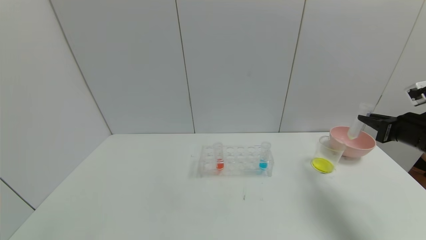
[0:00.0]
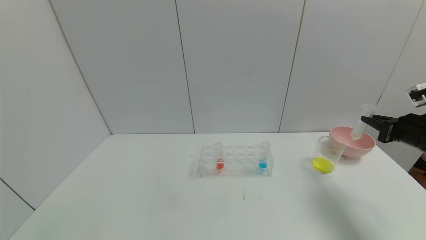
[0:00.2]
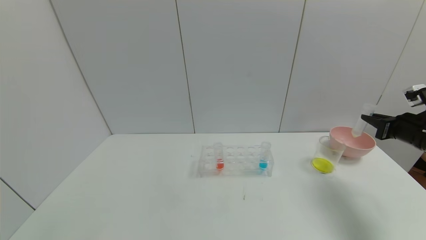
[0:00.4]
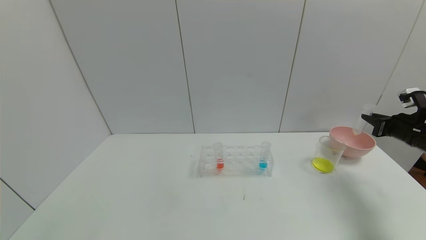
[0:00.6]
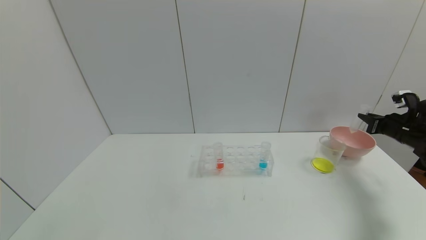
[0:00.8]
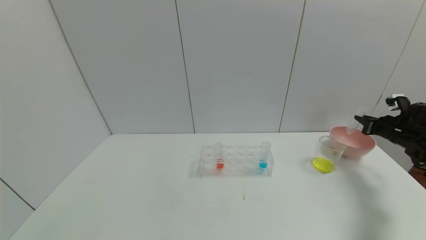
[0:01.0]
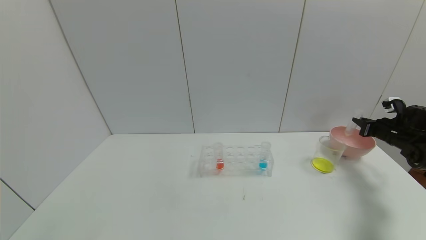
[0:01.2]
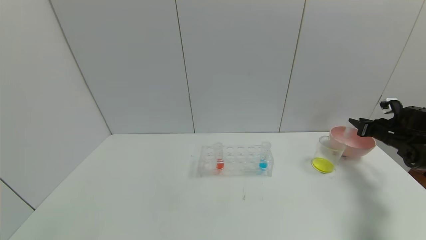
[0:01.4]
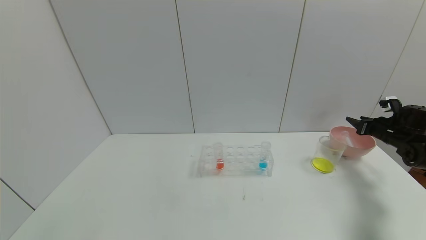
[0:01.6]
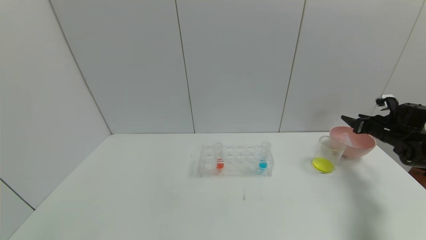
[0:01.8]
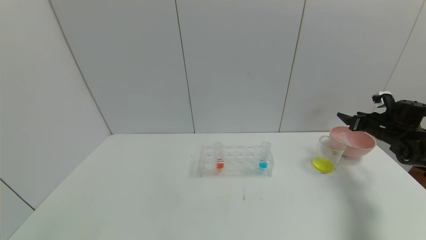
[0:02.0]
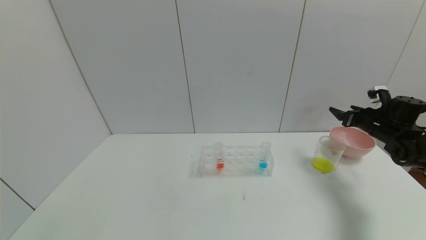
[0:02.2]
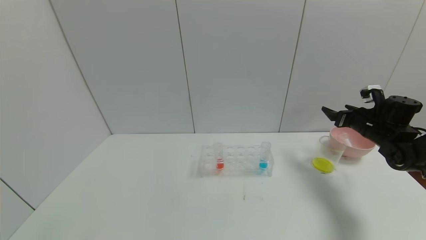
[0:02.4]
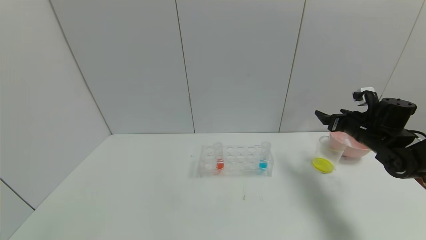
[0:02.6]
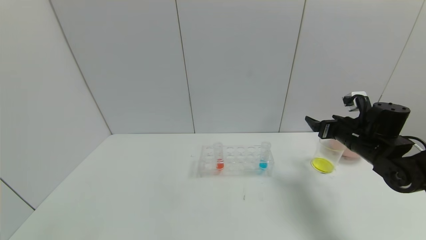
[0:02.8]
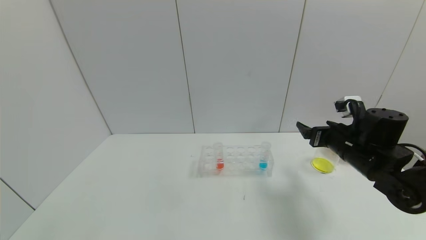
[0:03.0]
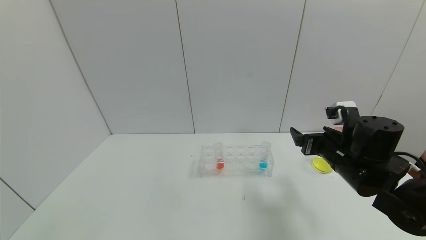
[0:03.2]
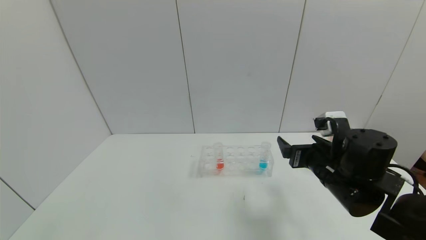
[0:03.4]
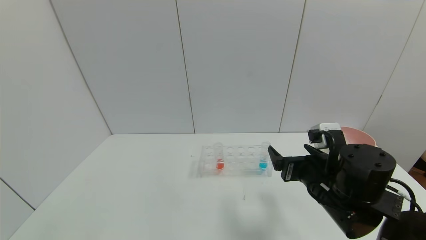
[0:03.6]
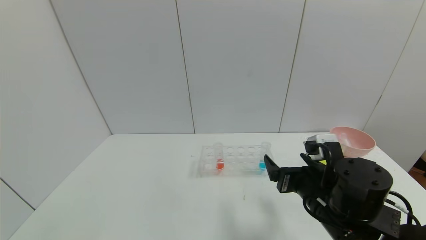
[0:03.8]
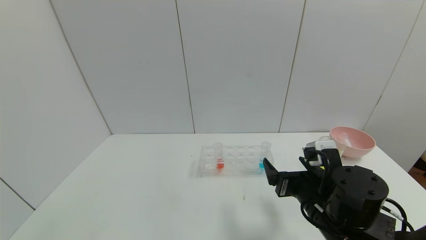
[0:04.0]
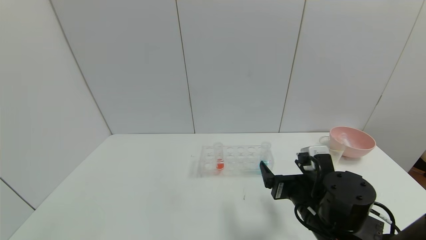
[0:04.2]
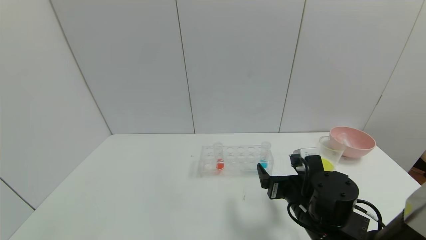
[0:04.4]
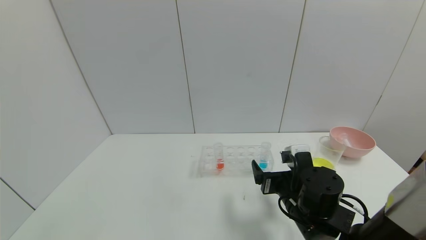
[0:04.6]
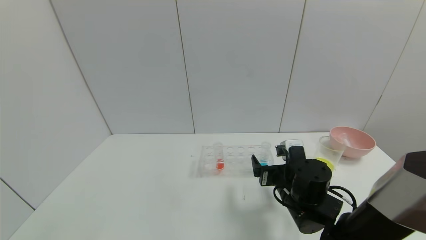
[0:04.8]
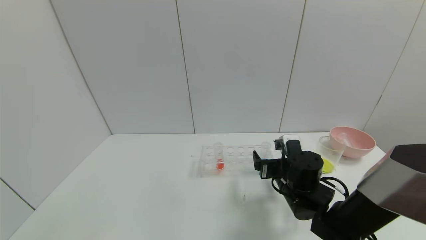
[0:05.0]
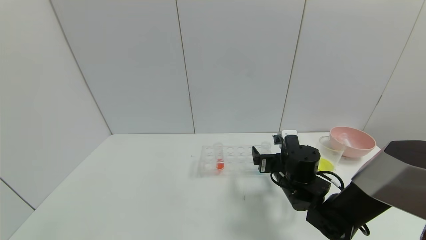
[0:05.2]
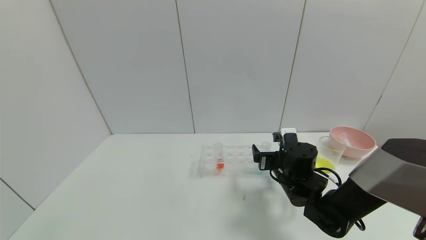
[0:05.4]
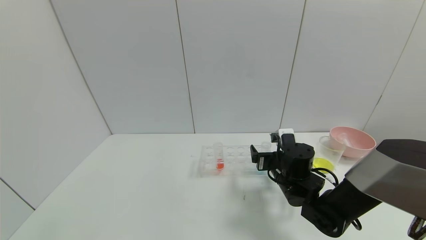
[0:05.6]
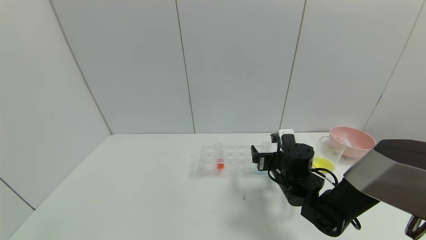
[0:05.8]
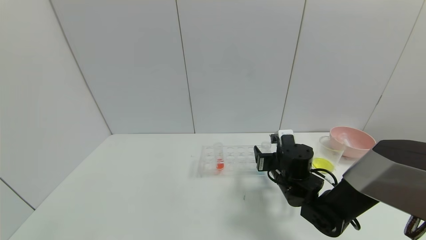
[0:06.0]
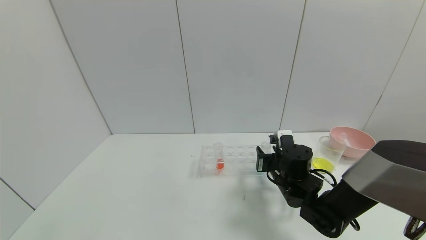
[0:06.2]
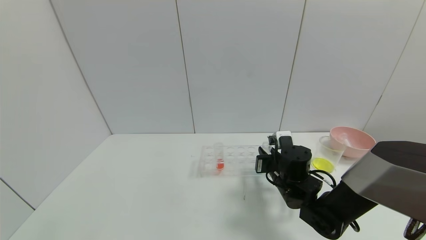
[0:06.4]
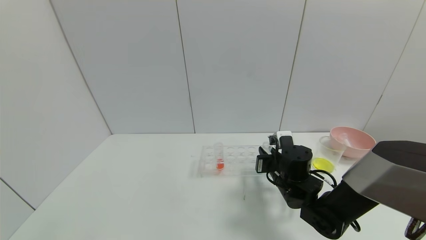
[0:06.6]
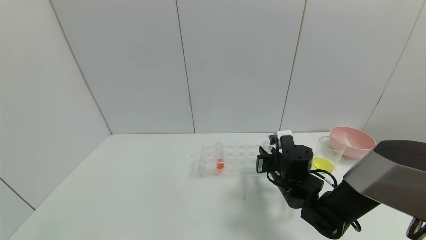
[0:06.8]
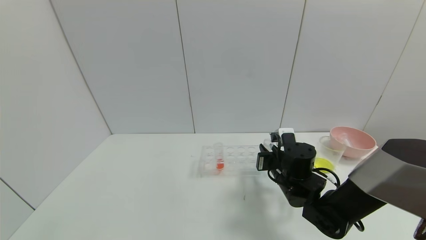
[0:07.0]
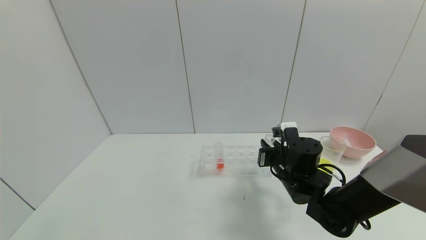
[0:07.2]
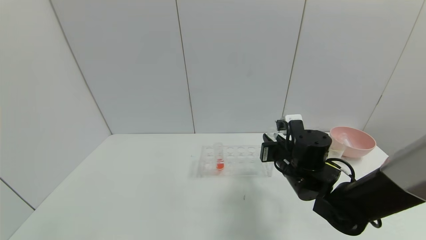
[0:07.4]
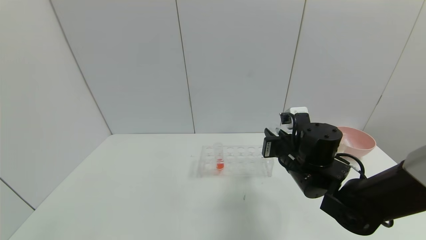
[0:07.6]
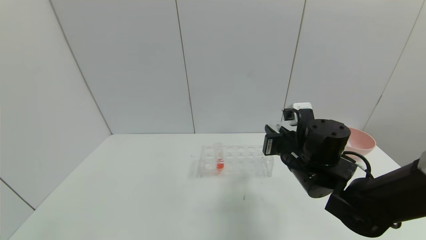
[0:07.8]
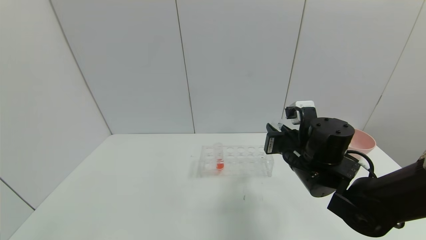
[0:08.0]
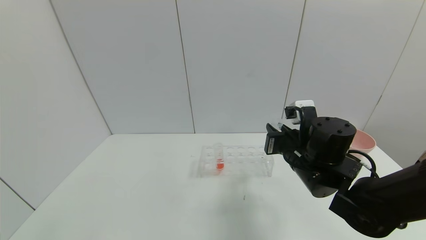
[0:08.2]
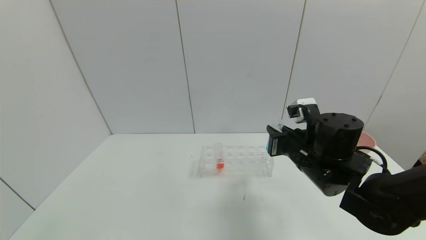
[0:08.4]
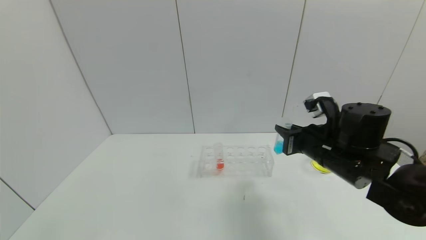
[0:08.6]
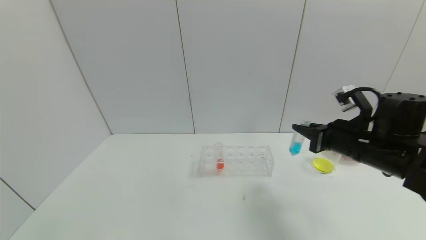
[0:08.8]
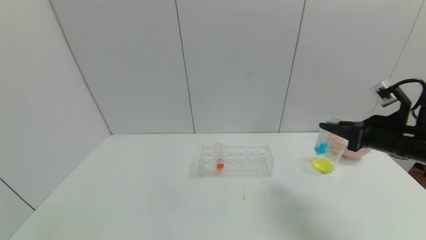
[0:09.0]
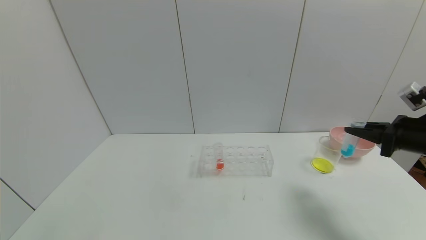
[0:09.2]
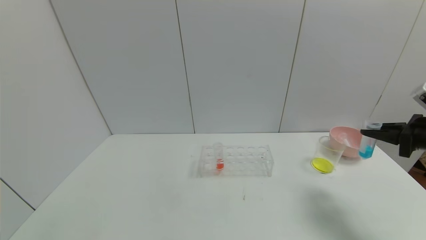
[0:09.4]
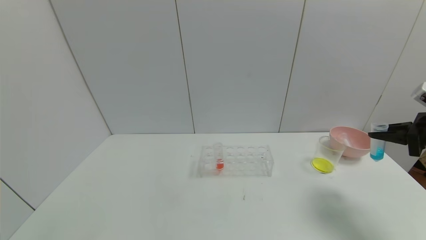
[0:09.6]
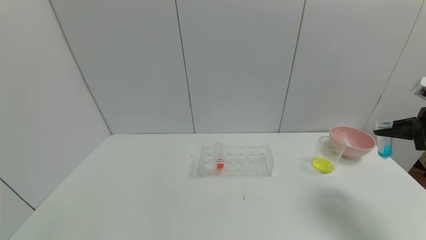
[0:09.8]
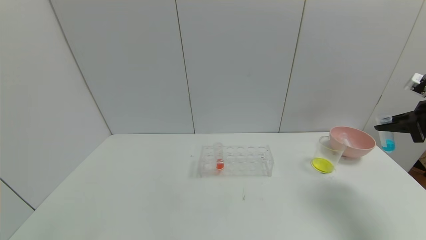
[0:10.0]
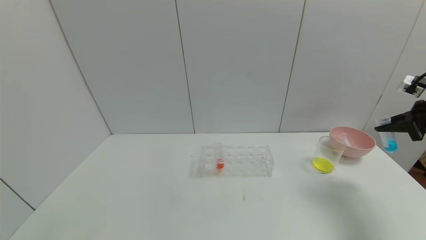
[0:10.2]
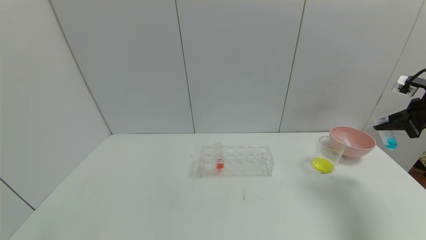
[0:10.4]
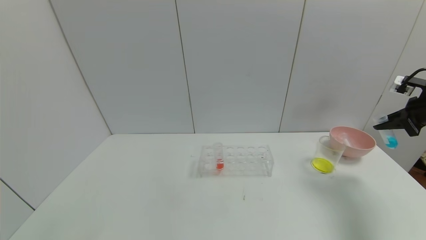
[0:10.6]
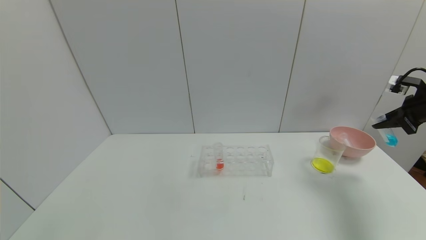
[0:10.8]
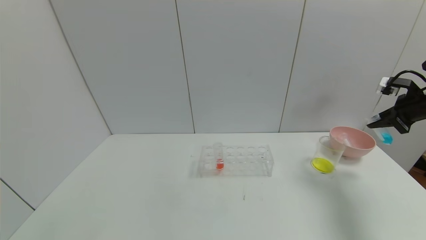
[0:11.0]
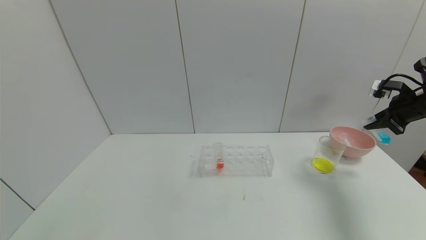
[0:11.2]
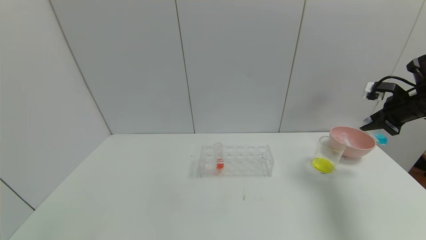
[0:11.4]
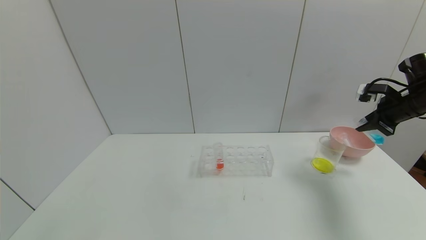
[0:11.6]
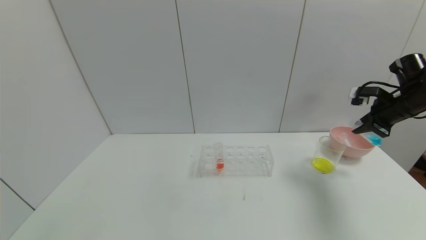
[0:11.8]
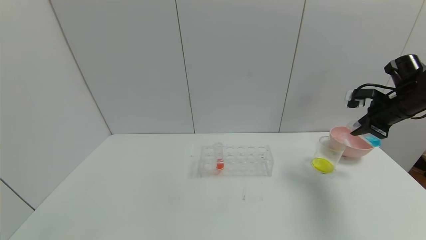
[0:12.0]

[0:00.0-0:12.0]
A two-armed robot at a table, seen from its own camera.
Task of the whole recording: pick up the test tube with yellow pigment and the test tube with blue pigment by grippers and pour them into the beaker.
Step, 0:00.0 to 0:03.2: Place the test tube into the bowl with right gripper.
Step, 0:03.4 to 0:09.0: Pick up the test tube containing the blue reagent with right gripper.
0:00.0 to 0:01.6: The right gripper heads forward, to the right and downward, covering about 20 cm, and opens its fingers.
0:01.6 to 0:03.0: The right gripper shifts some 25 cm to the left and backward, and opens its fingers.
0:03.0 to 0:04.4: The right gripper goes roughly 15 cm to the left, backward and downward.
0:04.4 to 0:06.0: The right gripper is displaced forward by roughly 10 cm.
0:06.0 to 0:07.6: The right gripper is displaced upward by some 5 cm, and closes up.
0:07.6 to 0:09.0: The right gripper is displaced to the right by approximately 20 cm.
0:09.0 to 0:10.4: The right gripper travels to the right by about 15 cm.
0:10.4 to 0:12.0: The right gripper moves to the left, approximately 5 cm.

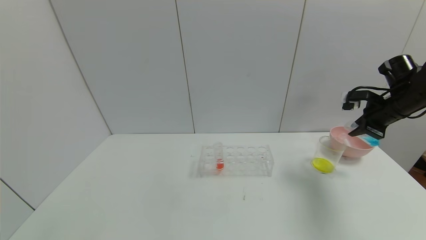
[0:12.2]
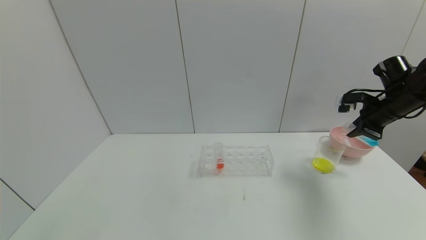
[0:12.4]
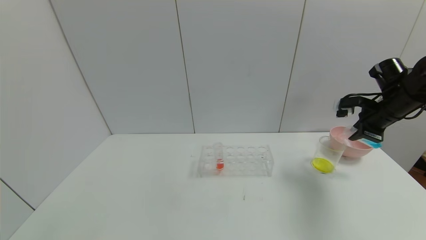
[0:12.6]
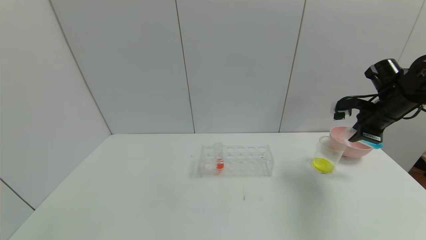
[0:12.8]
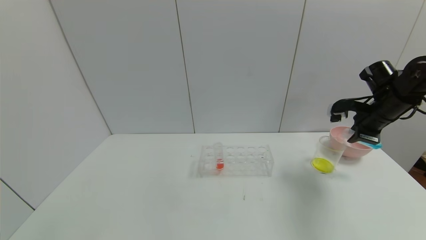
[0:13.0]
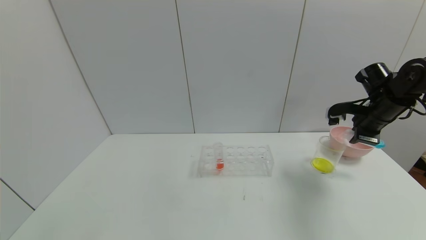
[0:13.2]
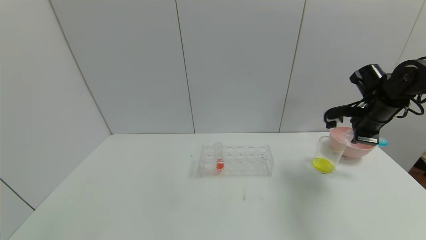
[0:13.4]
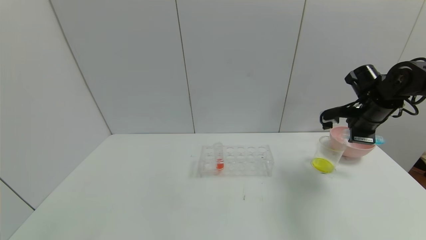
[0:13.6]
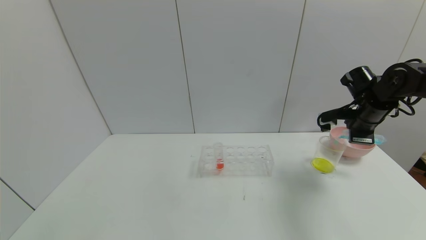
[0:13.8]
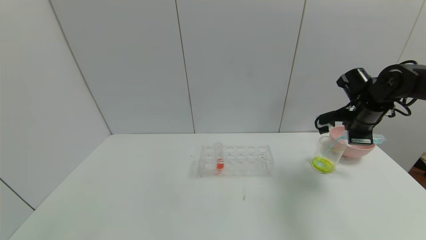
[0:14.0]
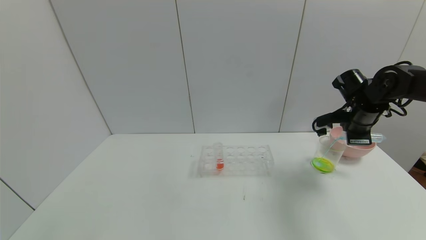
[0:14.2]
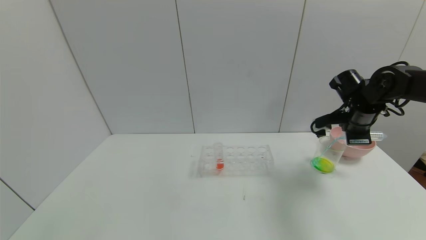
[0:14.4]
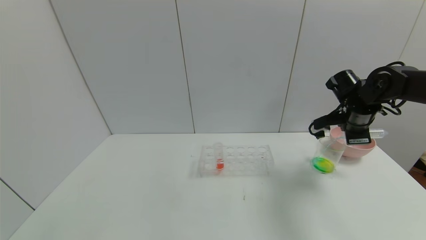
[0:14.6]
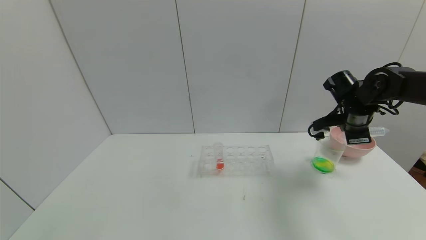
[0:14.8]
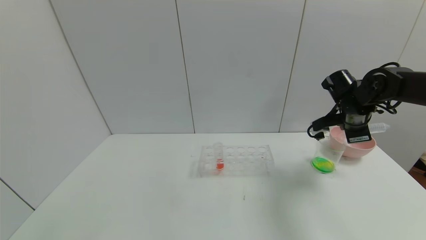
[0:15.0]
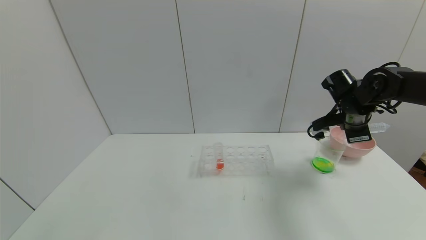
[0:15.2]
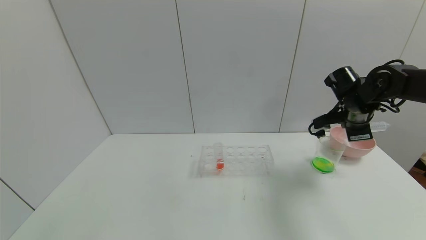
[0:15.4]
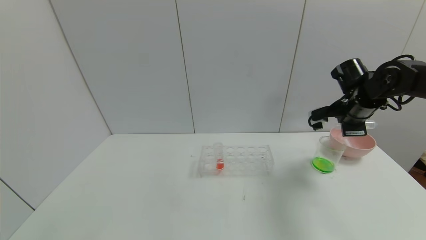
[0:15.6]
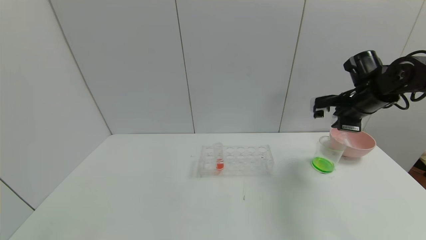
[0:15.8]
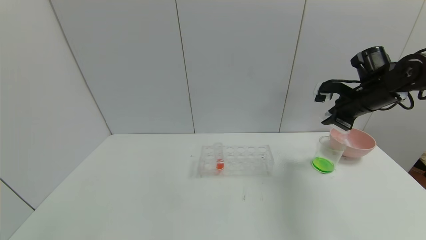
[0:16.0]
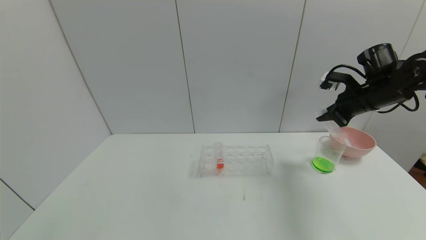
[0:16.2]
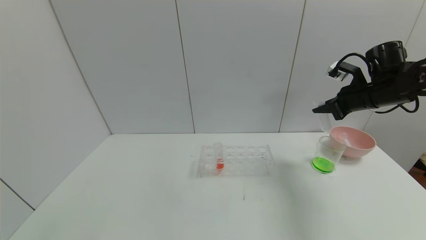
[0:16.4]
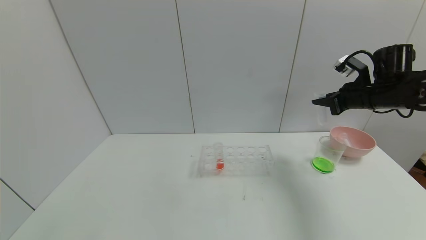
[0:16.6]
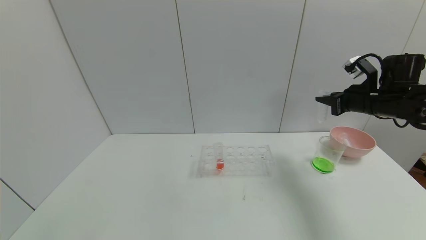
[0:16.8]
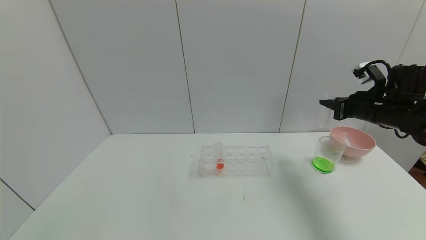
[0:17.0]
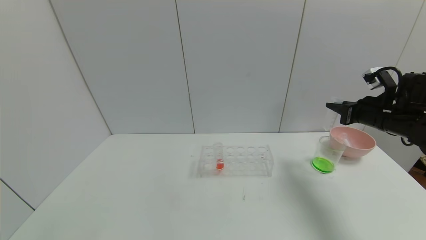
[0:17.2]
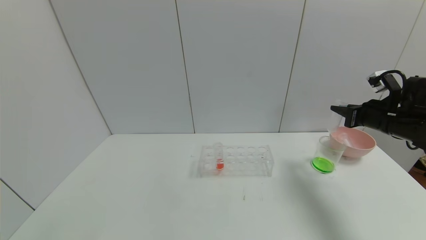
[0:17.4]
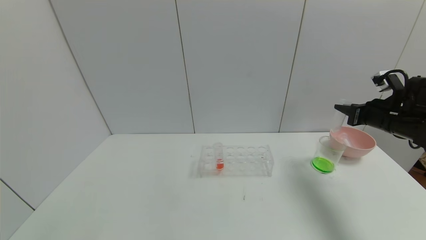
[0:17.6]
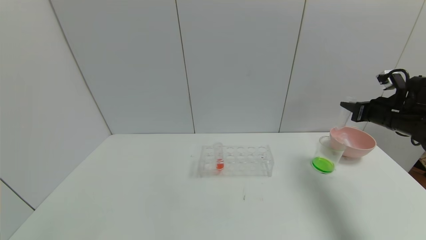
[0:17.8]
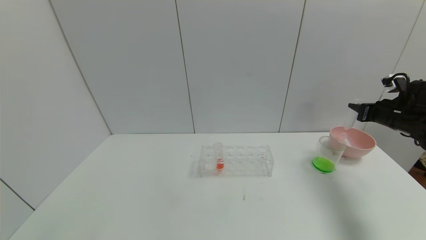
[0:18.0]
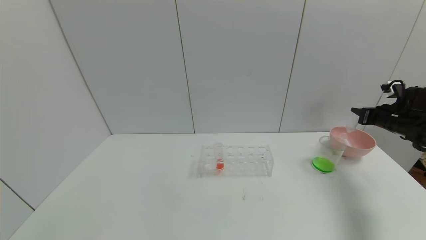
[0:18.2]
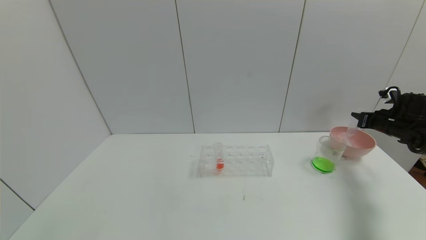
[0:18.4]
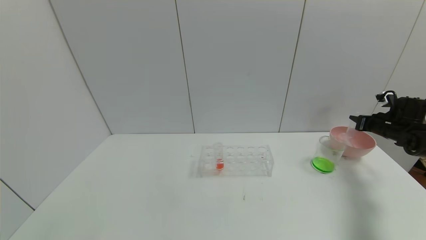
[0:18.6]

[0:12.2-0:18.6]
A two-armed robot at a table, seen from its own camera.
Task of the whole recording: pick up the test tube with yellow pigment and the test tube with blue pigment by grippers and pour them into the beaker.
Step, 0:12.2 to 0:18.2: Pour the blue reagent into the graduated cylinder with right gripper.
0:12.2 to 0:13.8: The right gripper heads to the left, covering about 5 cm.
0:13.8 to 0:15.4: The grippers move only a little.
0:15.4 to 0:17.0: The right gripper shifts by some 5 cm.
0:17.0 to 0:18.6: The right gripper heads to the right, downward and forward, covering about 20 cm.
